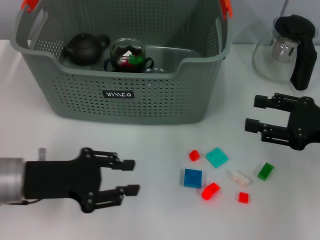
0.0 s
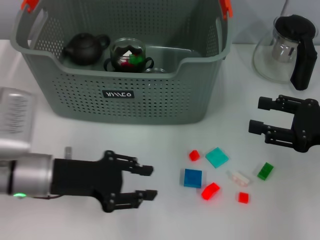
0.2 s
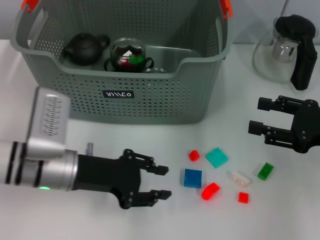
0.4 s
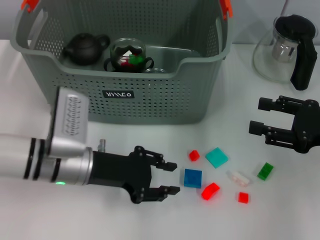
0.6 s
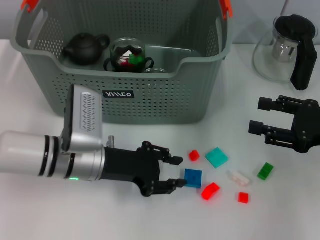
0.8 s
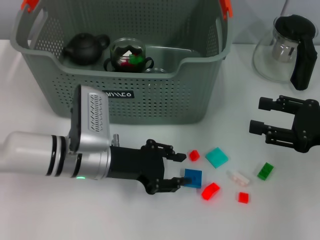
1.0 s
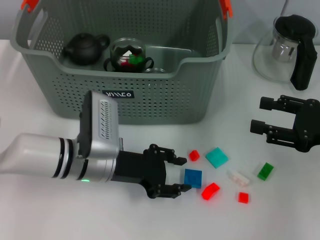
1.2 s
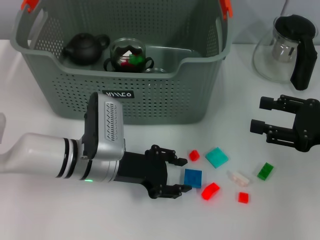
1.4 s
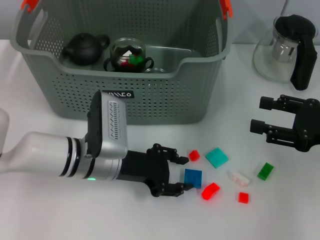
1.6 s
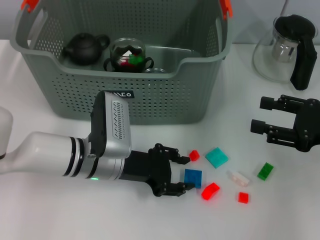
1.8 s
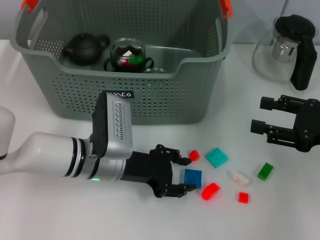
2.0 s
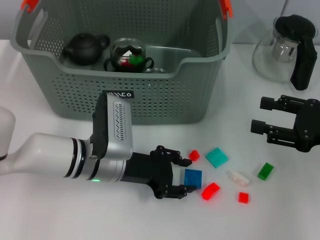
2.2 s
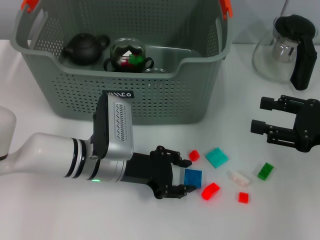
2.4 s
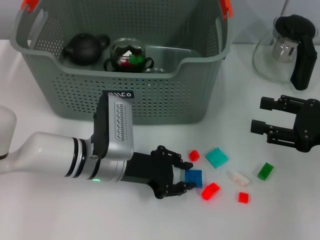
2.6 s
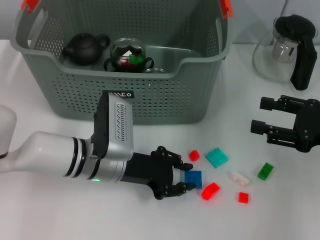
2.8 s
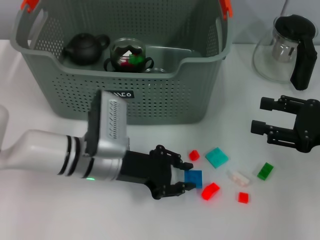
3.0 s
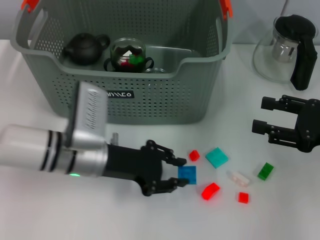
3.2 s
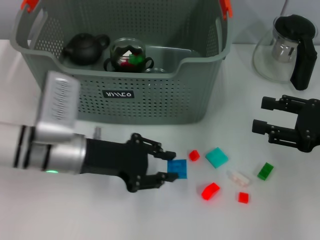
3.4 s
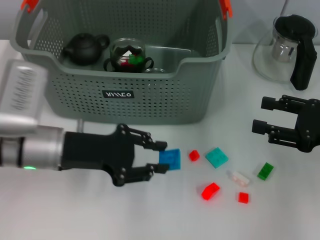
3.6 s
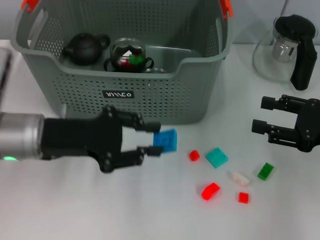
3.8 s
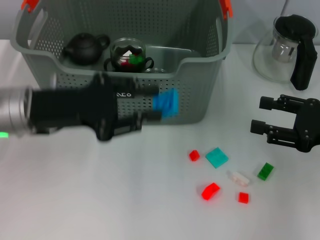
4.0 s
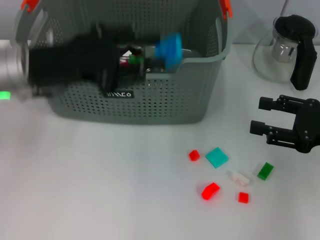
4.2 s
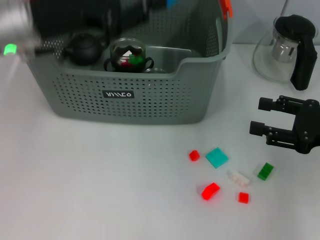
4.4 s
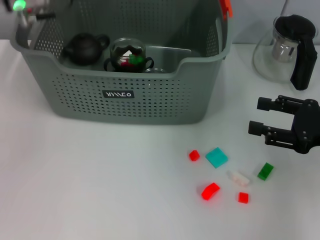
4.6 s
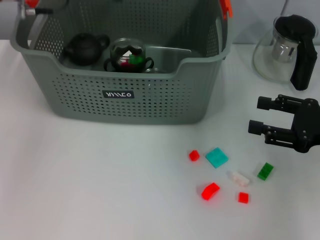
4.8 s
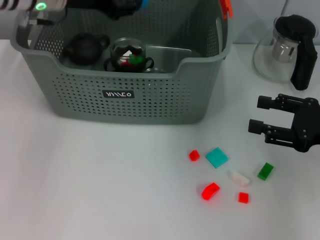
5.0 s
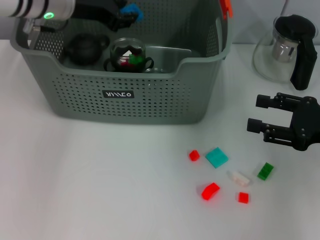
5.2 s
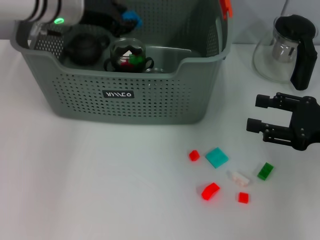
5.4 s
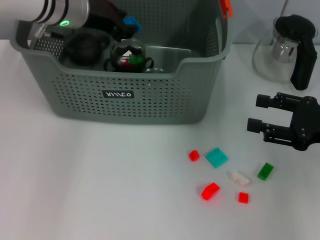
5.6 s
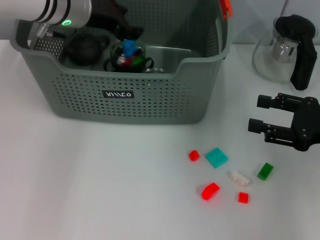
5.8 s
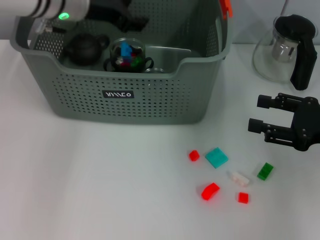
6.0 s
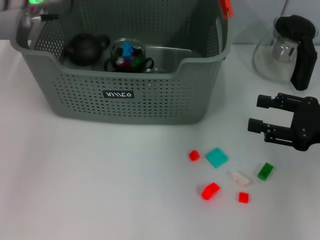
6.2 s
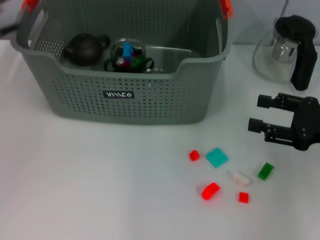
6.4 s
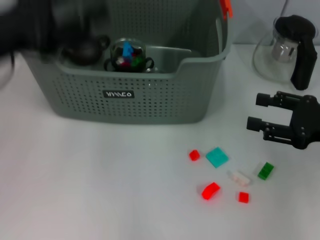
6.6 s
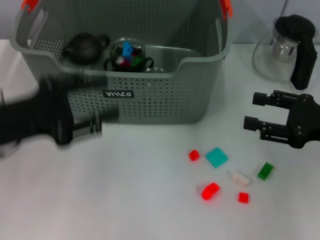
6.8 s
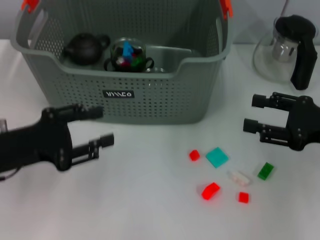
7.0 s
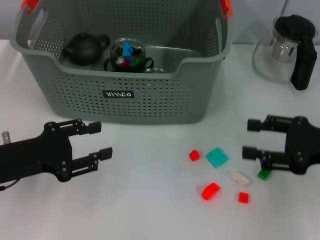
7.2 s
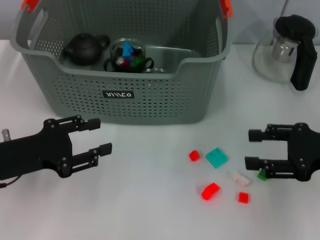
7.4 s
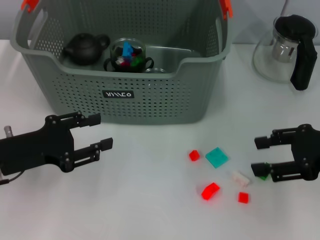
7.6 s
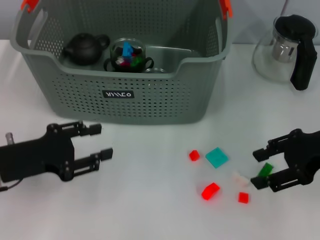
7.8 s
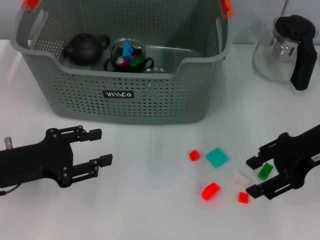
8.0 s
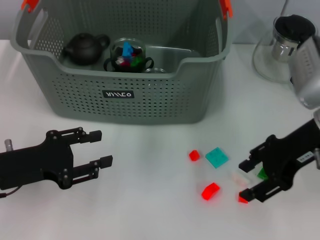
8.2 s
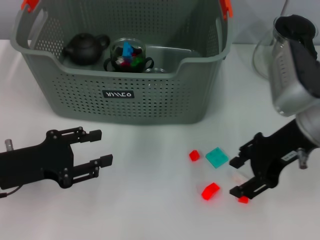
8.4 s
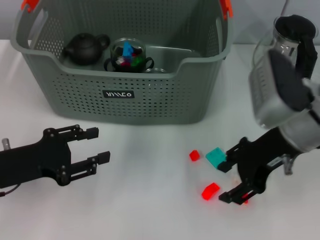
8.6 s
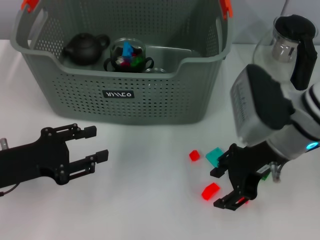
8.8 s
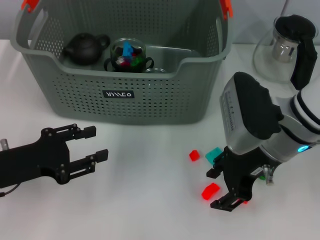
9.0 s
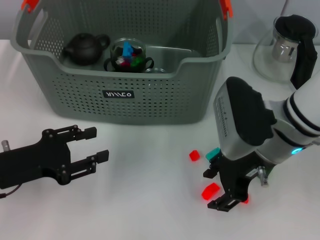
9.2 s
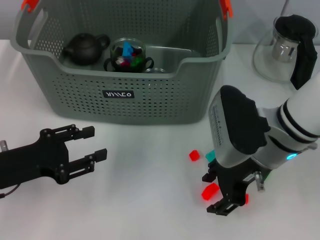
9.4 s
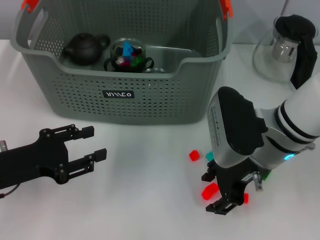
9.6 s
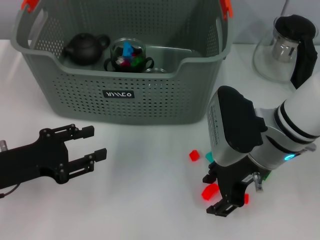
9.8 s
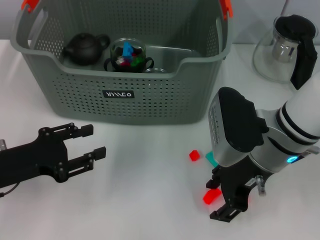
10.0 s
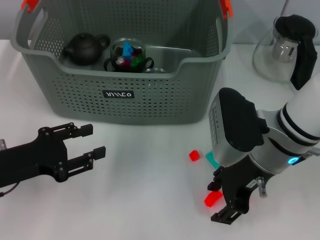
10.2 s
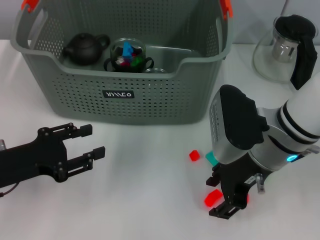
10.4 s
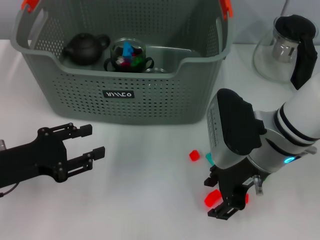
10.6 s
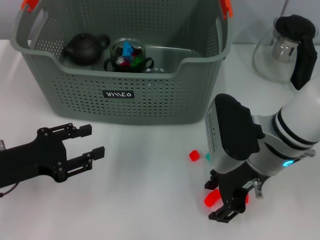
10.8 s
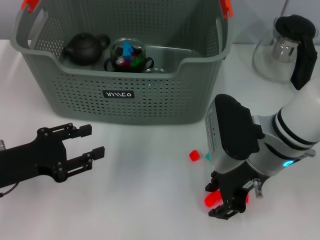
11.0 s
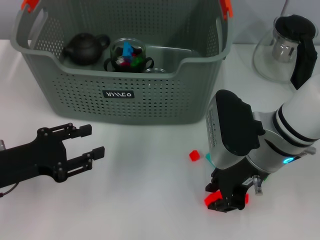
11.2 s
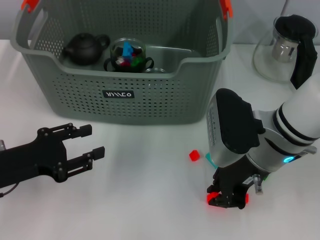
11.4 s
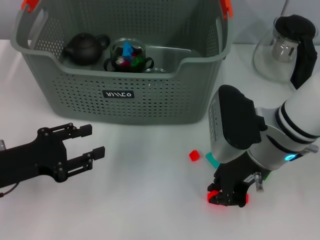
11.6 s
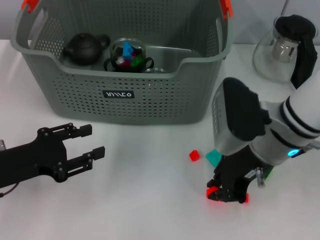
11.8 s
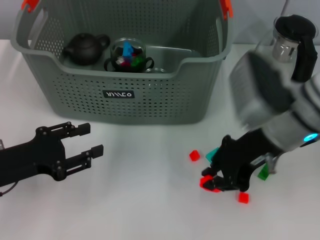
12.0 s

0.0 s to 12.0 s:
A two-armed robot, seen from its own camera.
Task of the whole recording: pick up the teacup on the table and place it into the storage bin, pick up the block on the table and place it into the storage bin.
Step, 0.0 to 2.8 s: Grasp the dark blue block with left gripper.
Step, 3.0 to 5.6 s: Place the dark blue block in the storage box with left gripper.
Step, 6.0 to 11.4 s: Grasp the orange block with right gripper.
0.0 to 1.6 s: The left gripper moves to the right, forward and downward, approximately 15 cm.
1.6 to 3.0 s: Neither gripper changes place.
3.0 to 4.4 s: The left gripper goes approximately 20 cm upward and to the left.
4.4 to 6.0 s: The left gripper heads forward, covering about 5 cm.
6.0 to 7.6 s: The left gripper travels backward, downward and to the left by about 25 cm.
7.6 to 9.0 s: The right gripper heads to the left, covering roughly 15 cm.
9.0 to 10.4 s: The grippers move only a little.
10.4 to 12.0 s: The right gripper closes.

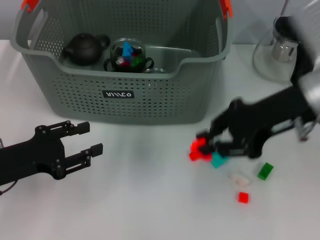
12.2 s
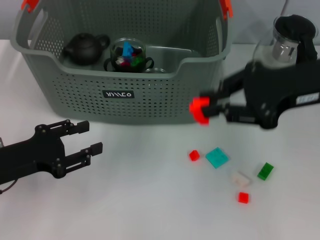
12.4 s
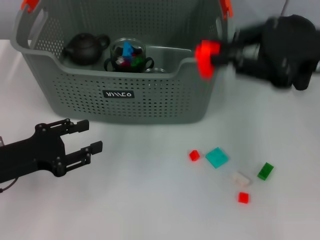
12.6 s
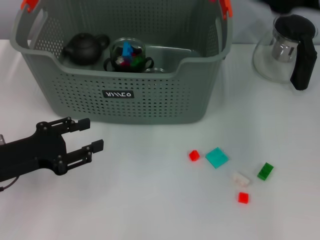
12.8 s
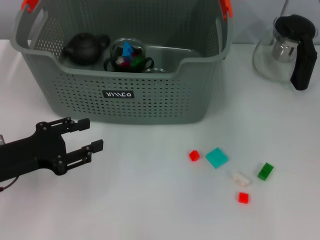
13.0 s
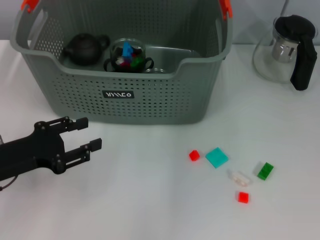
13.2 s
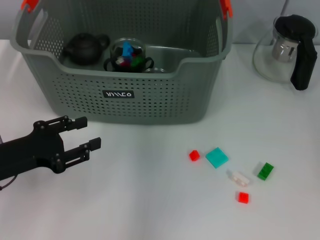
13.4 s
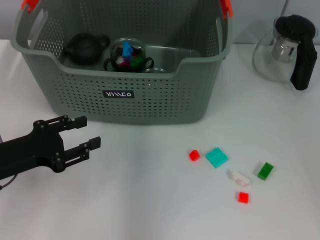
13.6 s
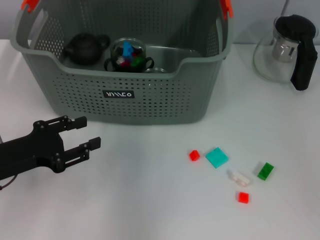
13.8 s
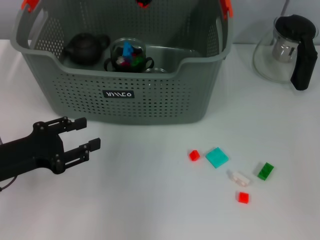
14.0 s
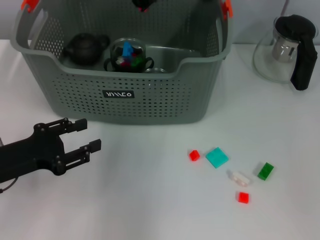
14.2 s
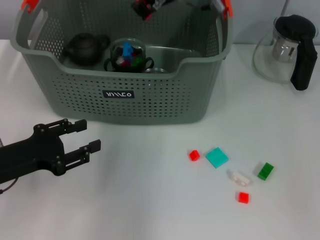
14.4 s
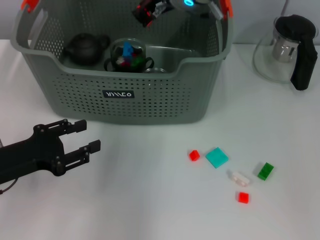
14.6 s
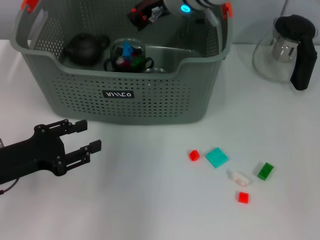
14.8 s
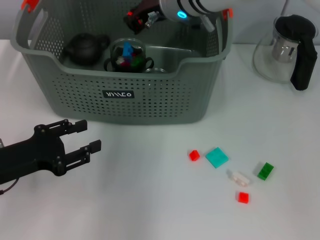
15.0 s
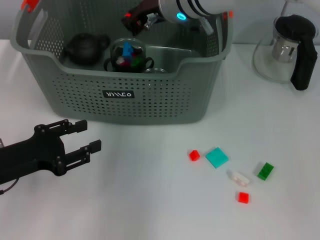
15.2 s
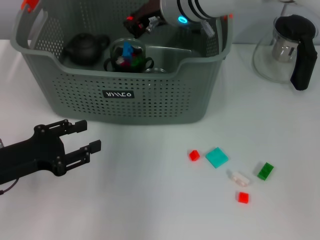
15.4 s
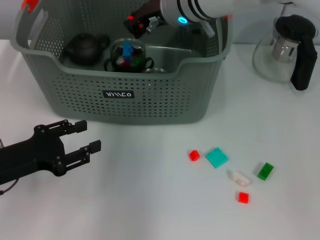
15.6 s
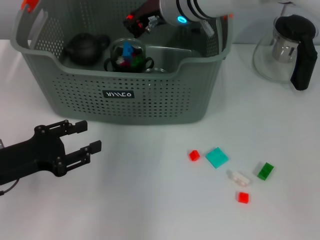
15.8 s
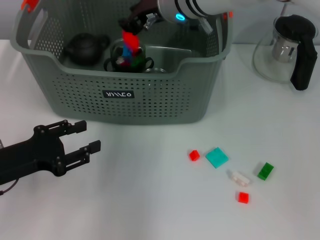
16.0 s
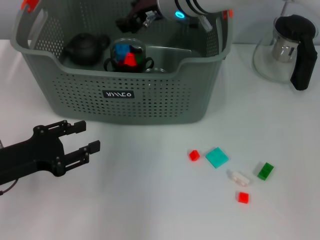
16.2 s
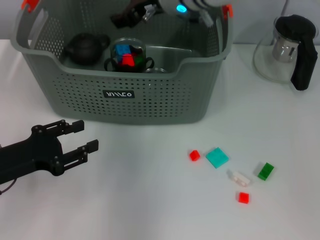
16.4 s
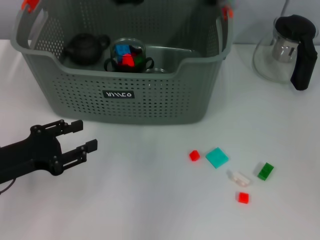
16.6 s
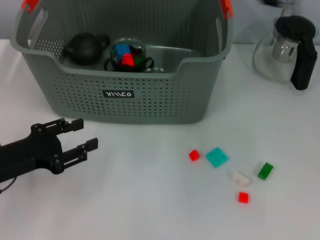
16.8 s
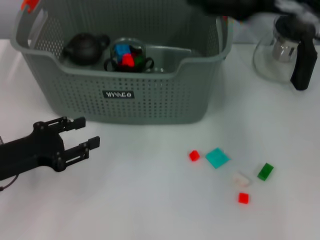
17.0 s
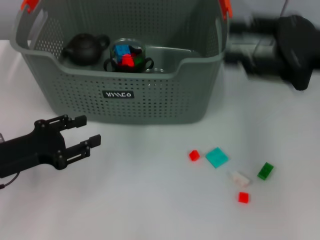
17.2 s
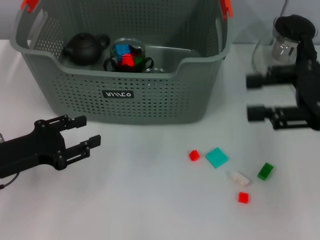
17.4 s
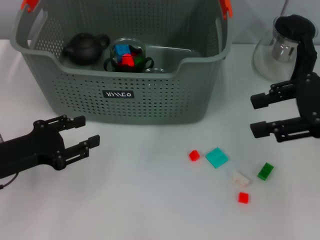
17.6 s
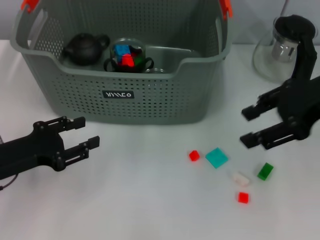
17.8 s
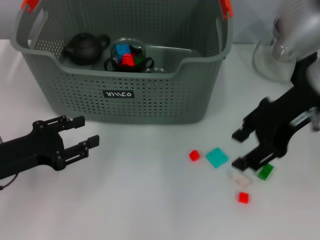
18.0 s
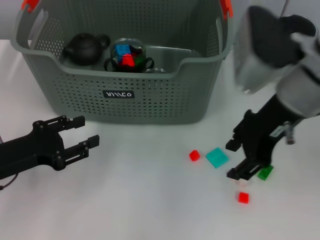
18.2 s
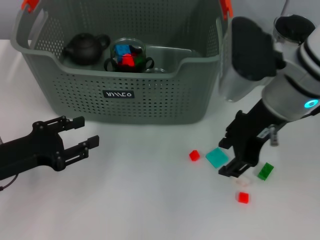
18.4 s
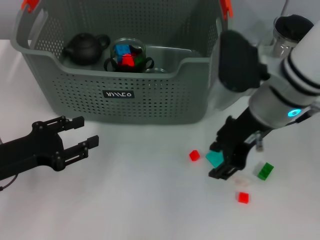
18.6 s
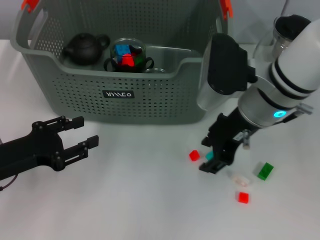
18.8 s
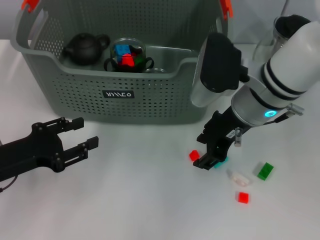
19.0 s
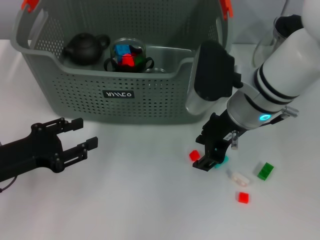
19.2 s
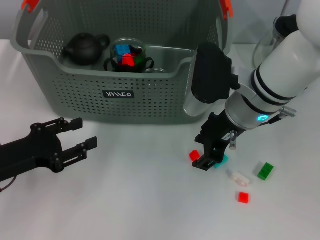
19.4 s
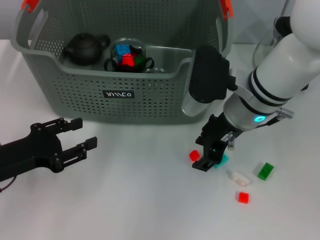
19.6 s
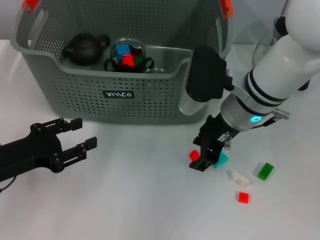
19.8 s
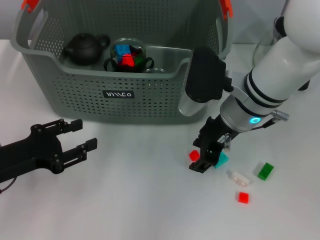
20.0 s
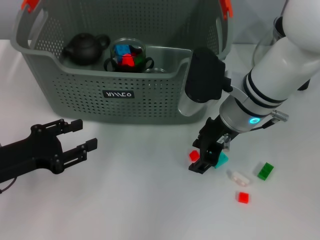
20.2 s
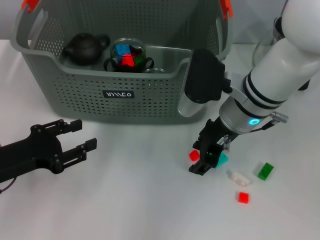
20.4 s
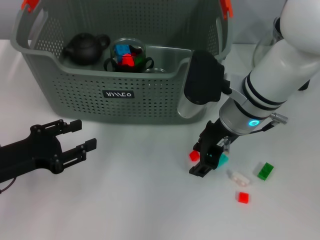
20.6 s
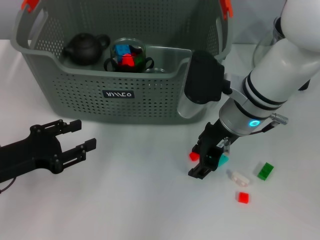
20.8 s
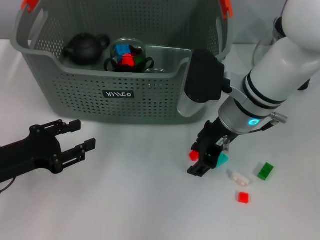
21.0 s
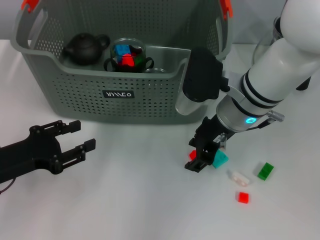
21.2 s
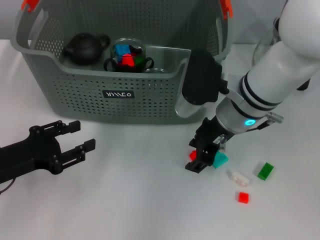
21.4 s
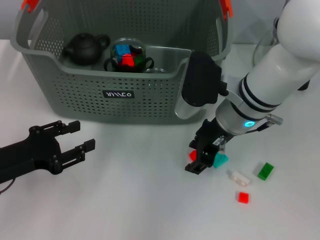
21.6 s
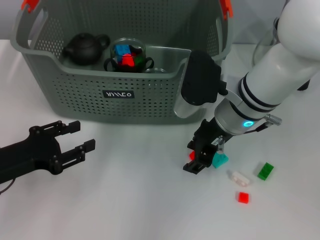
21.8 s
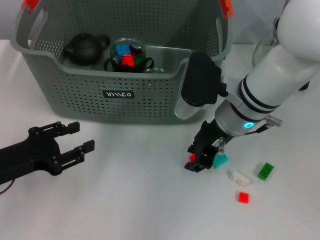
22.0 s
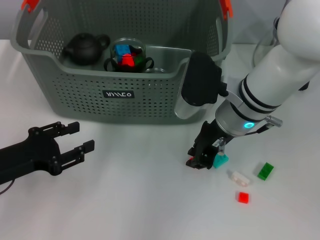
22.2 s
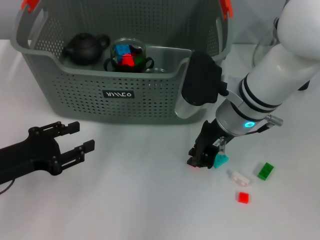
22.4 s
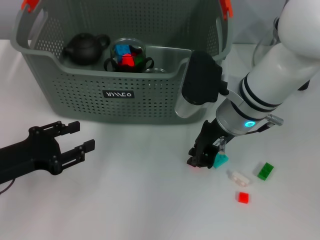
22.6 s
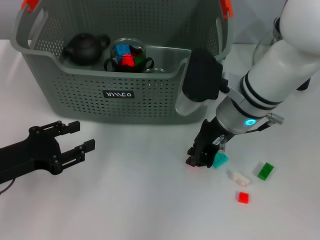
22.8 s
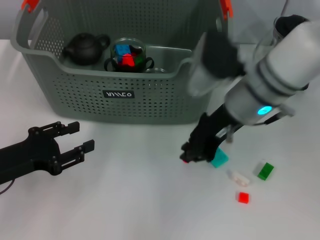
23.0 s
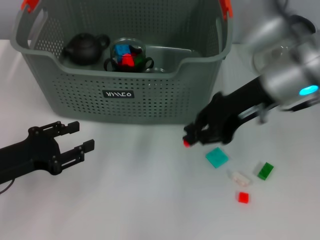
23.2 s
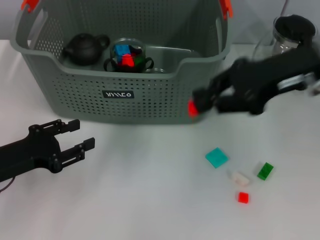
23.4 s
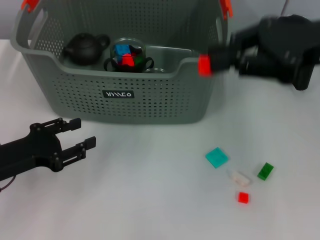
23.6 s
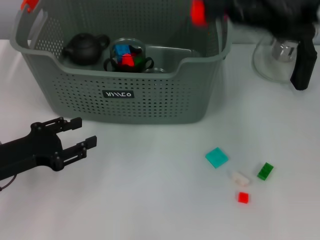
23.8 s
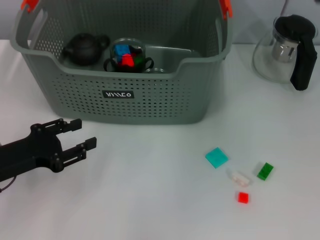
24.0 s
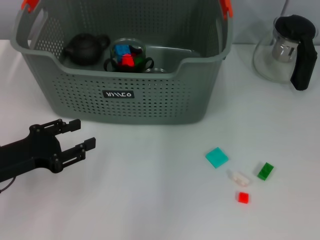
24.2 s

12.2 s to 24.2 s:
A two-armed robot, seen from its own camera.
Task of the whole recording: pick up the teacup on the table and place it into the storage bin, pick up the block on the table and place it into the storage bin.
Step, 12.2 to 16.0 s: Place the orange block in the storage box with right gripper.
Step, 16.2 to 22.6 s: Grasp the orange block with right gripper.
12.2 to 13.8 s: The right gripper travels to the left, forward and upward by roughly 20 cm.
13.8 to 15.2 s: The right gripper moves downward, some 10 cm.
15.2 to 16.6 s: The right gripper is displaced upward by approximately 5 cm, and opens up.
16.6 to 18.2 s: The right gripper goes approximately 10 cm backward and to the right.
18.2 to 19.8 s: The right gripper goes some 10 cm downward.
19.8 to 21.2 s: Neither gripper changes place.
21.2 to 22.6 s: The right gripper closes.
22.6 to 24.2 s: The right gripper heads upward, covering roughly 20 cm.
